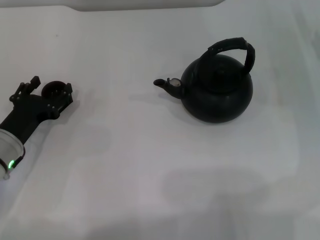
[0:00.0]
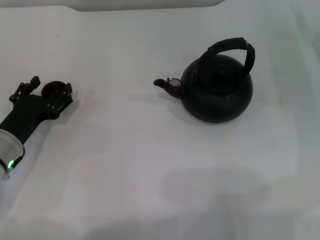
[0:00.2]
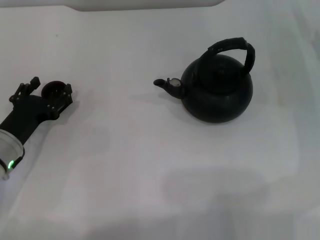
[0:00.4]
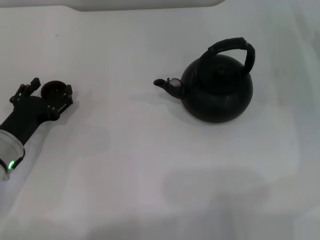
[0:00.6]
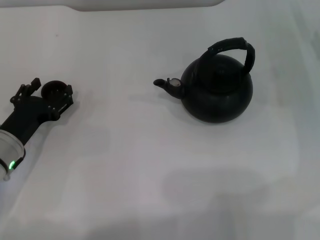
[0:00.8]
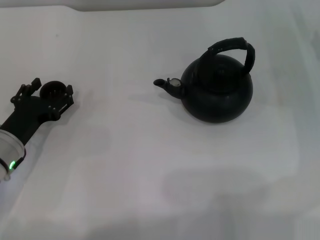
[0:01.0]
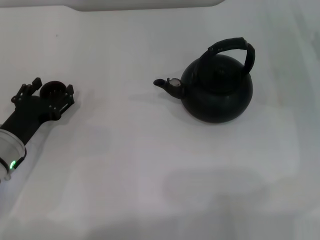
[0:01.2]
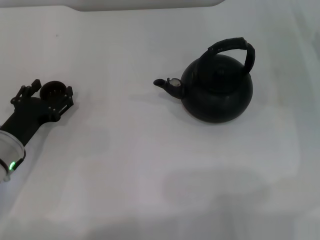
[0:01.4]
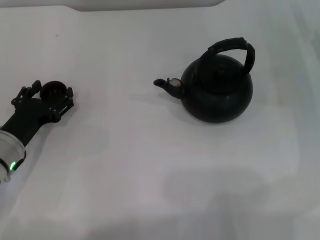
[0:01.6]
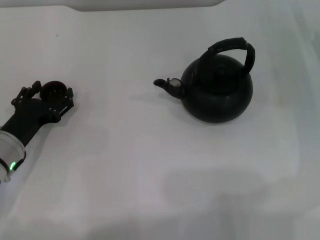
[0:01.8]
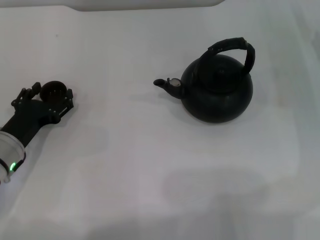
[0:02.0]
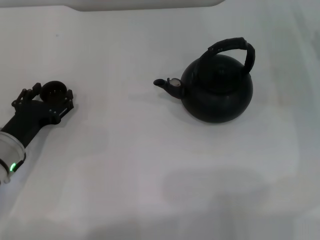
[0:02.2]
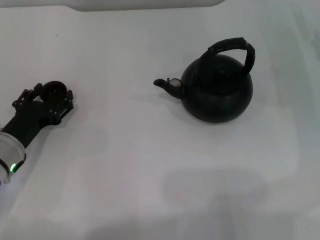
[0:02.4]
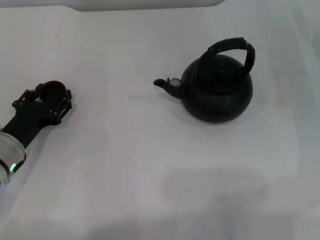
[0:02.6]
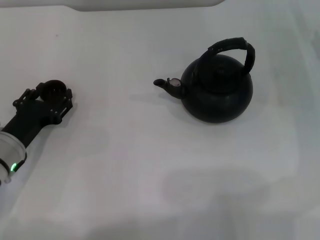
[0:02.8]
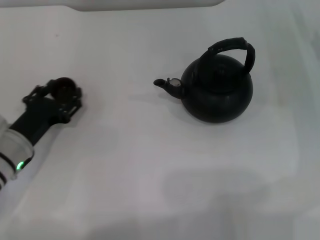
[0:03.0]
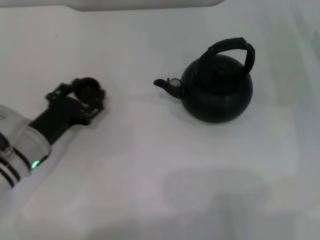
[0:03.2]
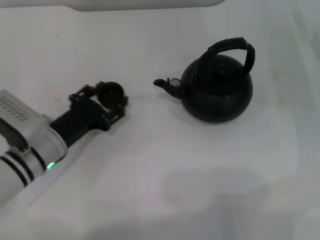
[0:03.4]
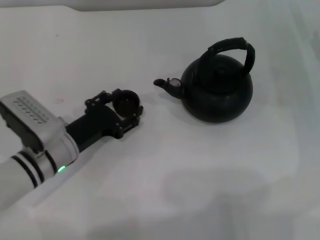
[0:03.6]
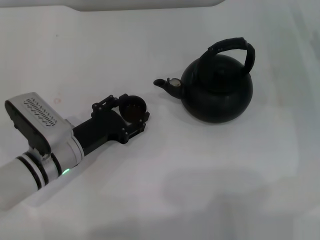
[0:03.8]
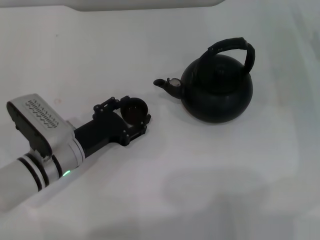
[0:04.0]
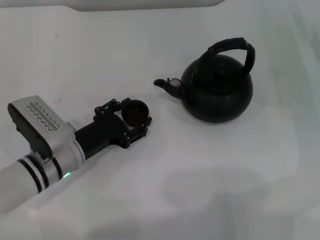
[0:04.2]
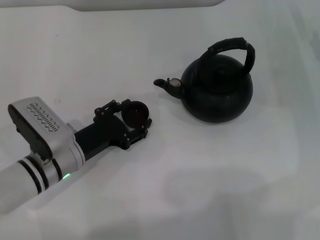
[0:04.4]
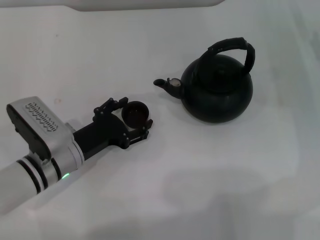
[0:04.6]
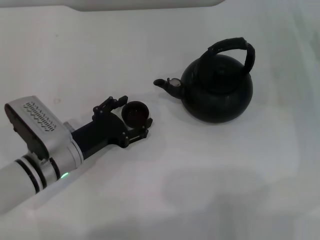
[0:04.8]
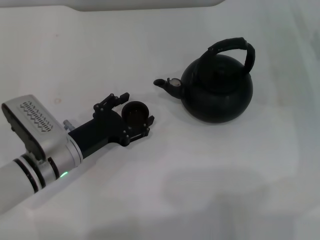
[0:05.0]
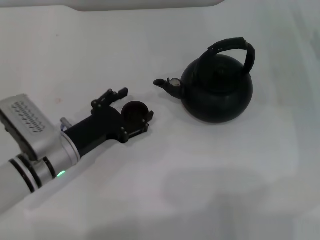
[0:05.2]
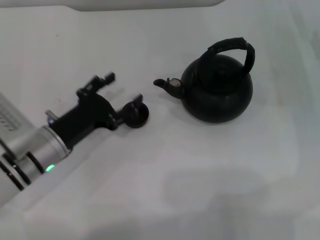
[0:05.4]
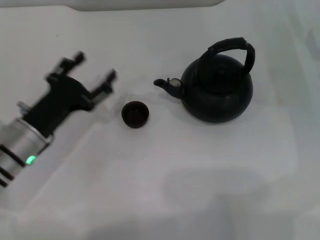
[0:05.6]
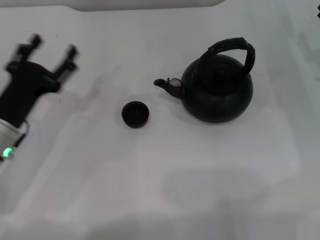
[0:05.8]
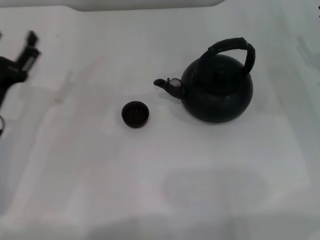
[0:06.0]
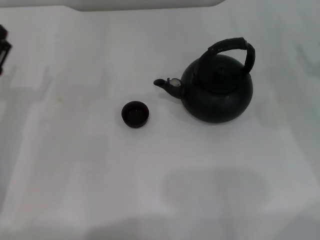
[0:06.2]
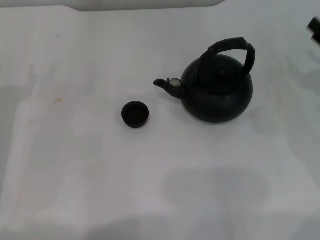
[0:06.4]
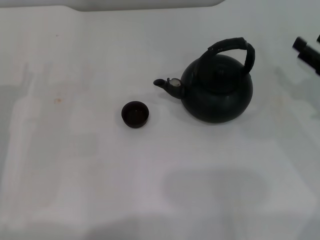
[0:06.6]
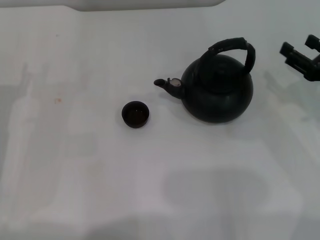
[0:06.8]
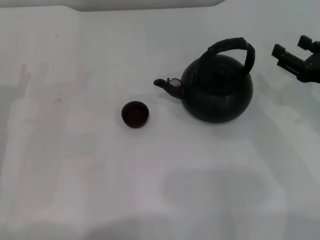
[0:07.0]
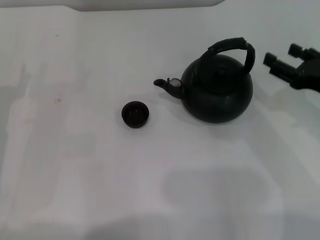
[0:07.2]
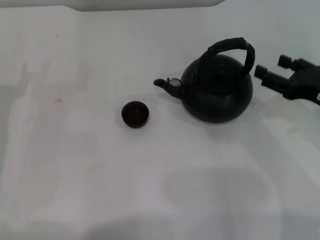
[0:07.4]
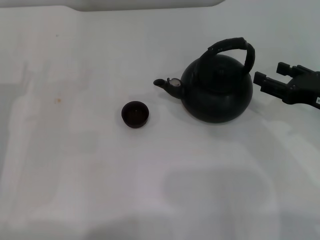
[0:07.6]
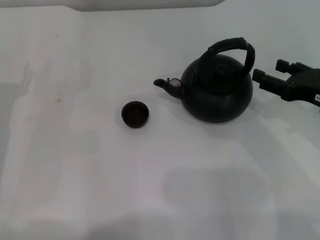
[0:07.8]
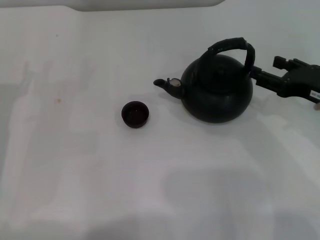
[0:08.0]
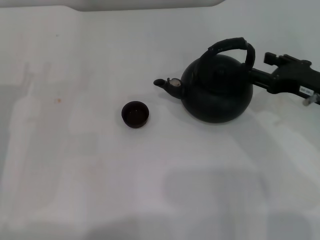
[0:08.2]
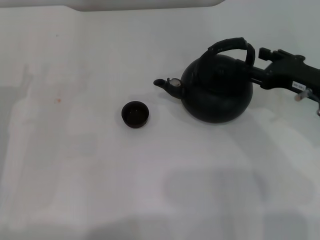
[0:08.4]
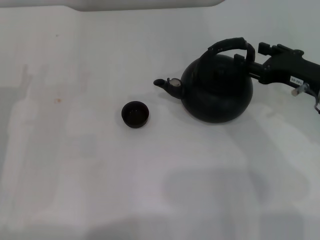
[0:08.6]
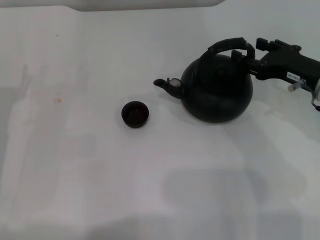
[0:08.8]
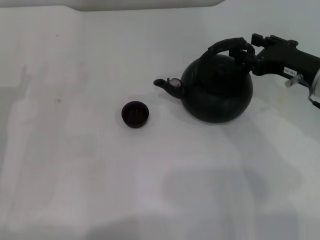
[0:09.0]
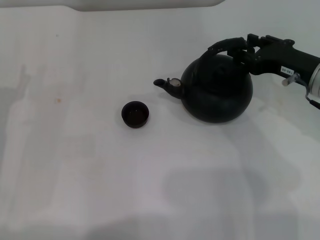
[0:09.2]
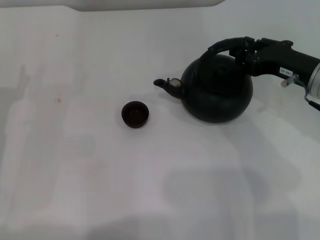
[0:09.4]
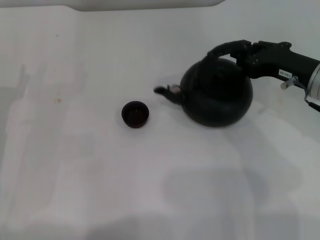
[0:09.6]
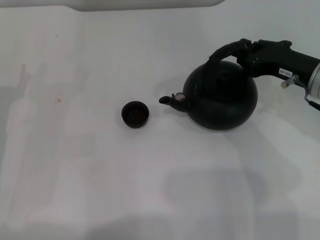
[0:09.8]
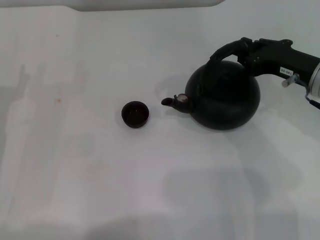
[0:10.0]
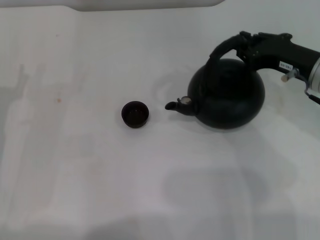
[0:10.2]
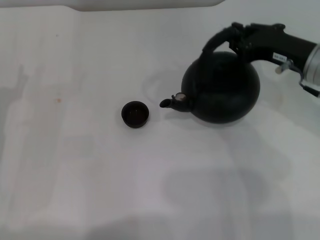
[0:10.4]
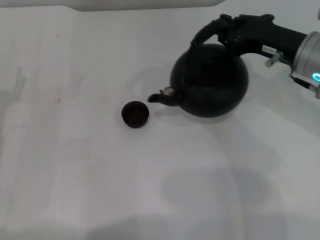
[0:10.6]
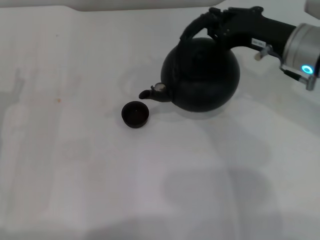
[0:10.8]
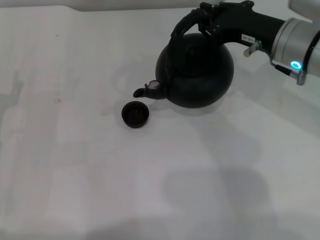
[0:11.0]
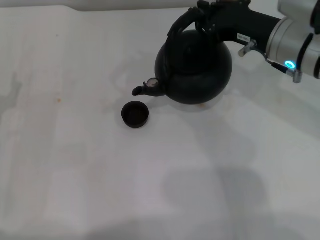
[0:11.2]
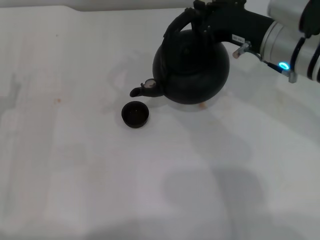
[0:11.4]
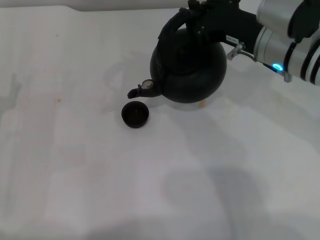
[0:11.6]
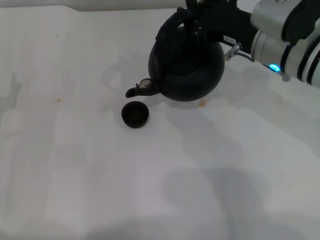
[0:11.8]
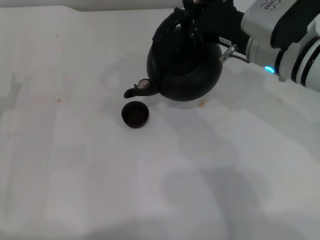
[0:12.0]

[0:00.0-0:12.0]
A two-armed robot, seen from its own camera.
Task of the whole recording: Grasp the handle of the teapot with one hand and pour tea into the teacup.
Step, 0:00.0 to 0:03.2: Pick up the teacup with the left gripper.
Step, 0:03.4 to 0:05.4: Place the teacup in the center of view with the left gripper.
Step, 0:05.6 to 0:10.4: Pick up the teapot with the right gripper.
0:00.0 to 0:01.6: Neither gripper changes place.
0:01.6 to 0:03.0: The left gripper closes.
0:03.0 to 0:04.4: The left gripper goes roughly 5 cm to the right.
0:04.4 to 0:06.0: The left gripper shifts approximately 10 cm to the left, and opens up.
0:06.0 to 0:07.6: The right gripper travels backward and to the left by about 10 cm.
0:07.6 to 0:09.0: The right gripper changes place by roughly 5 cm.
0:09.0 to 0:10.4: The right gripper closes.
0:10.4 to 0:12.0: The right gripper travels to the left by about 10 cm.

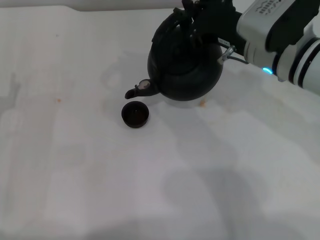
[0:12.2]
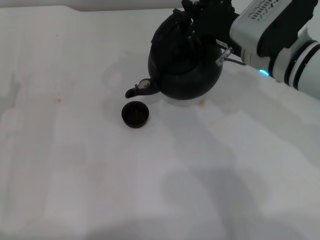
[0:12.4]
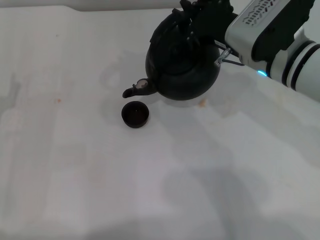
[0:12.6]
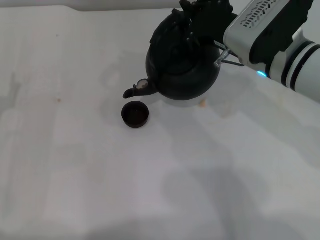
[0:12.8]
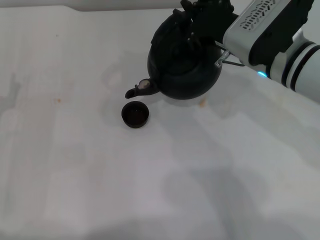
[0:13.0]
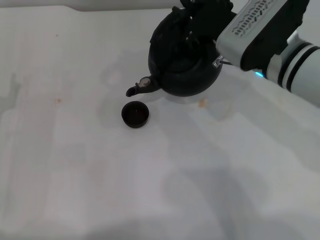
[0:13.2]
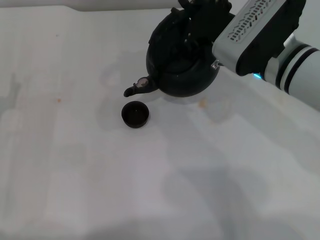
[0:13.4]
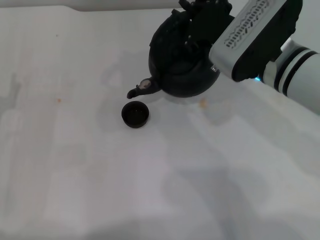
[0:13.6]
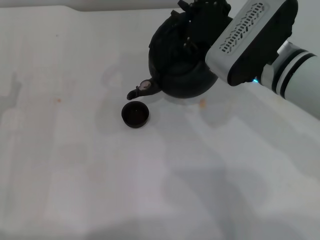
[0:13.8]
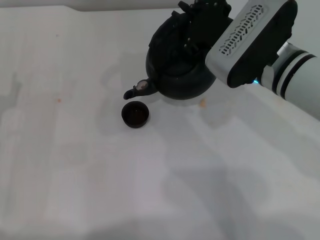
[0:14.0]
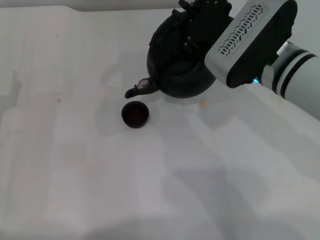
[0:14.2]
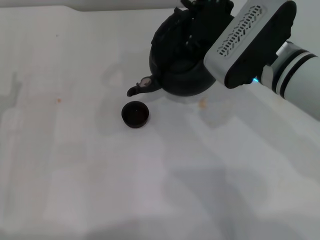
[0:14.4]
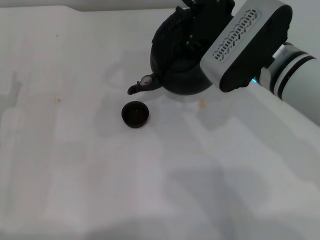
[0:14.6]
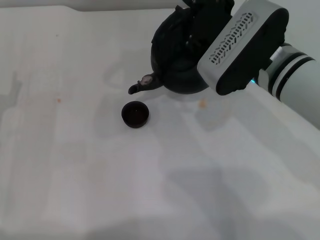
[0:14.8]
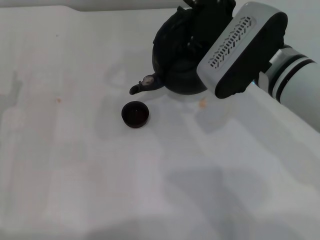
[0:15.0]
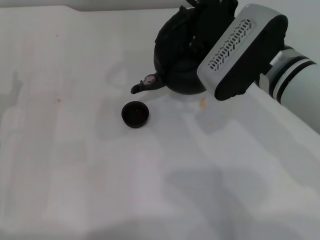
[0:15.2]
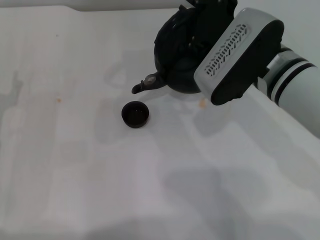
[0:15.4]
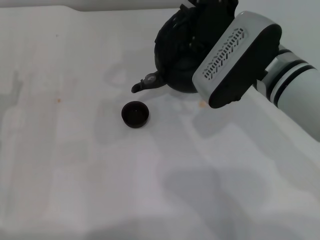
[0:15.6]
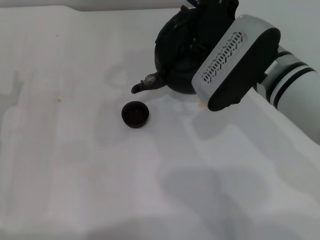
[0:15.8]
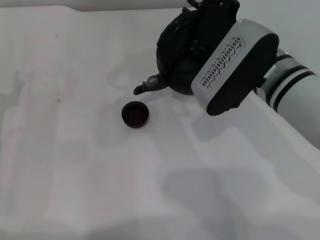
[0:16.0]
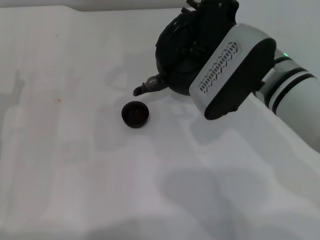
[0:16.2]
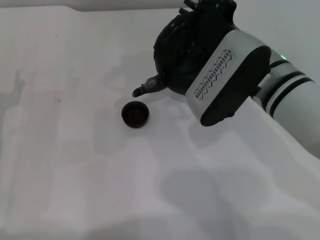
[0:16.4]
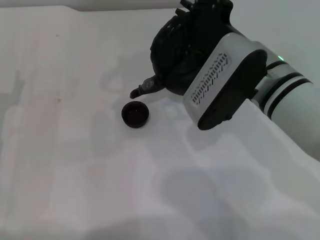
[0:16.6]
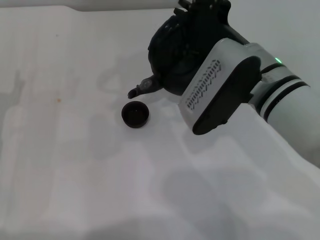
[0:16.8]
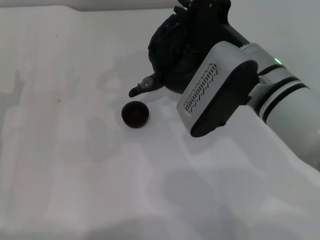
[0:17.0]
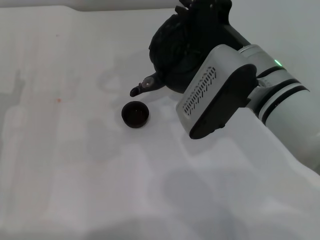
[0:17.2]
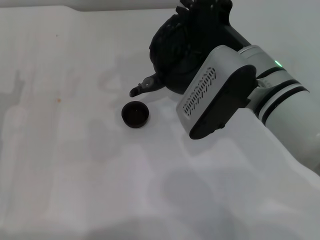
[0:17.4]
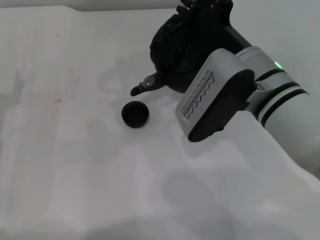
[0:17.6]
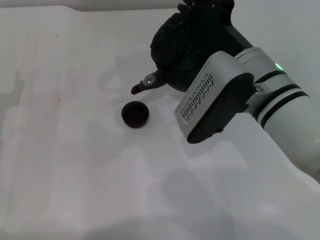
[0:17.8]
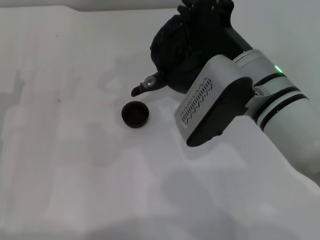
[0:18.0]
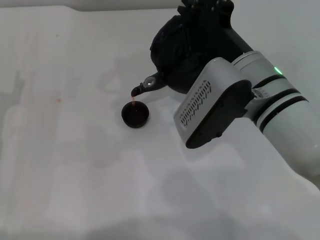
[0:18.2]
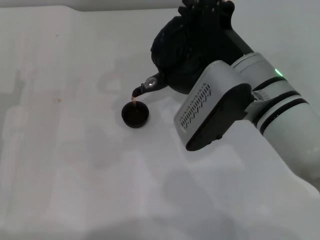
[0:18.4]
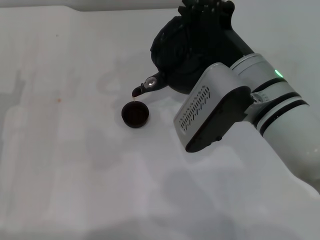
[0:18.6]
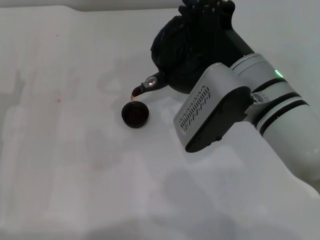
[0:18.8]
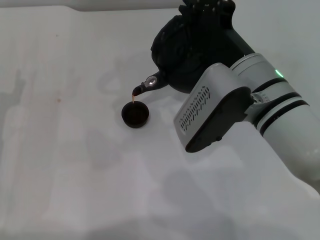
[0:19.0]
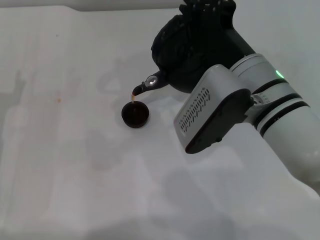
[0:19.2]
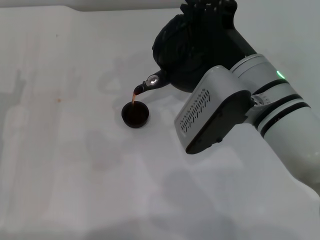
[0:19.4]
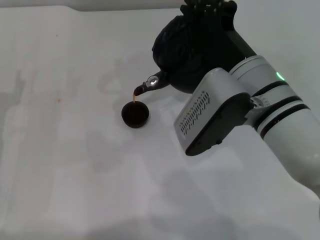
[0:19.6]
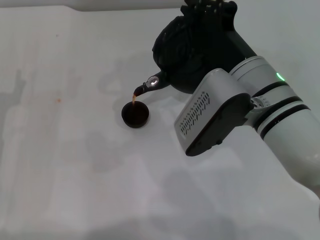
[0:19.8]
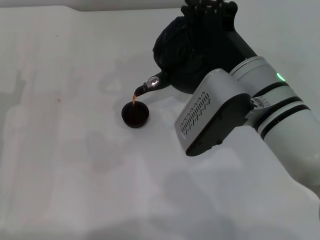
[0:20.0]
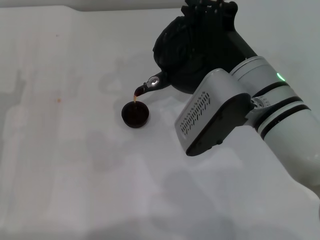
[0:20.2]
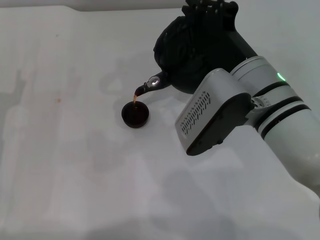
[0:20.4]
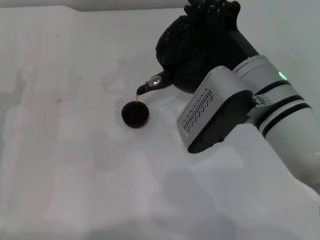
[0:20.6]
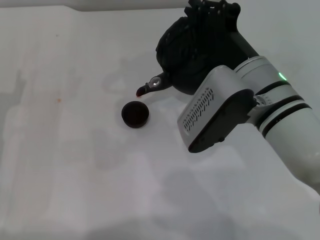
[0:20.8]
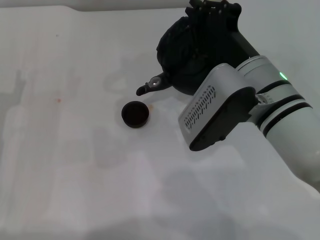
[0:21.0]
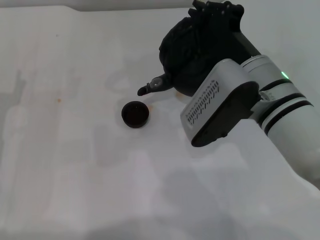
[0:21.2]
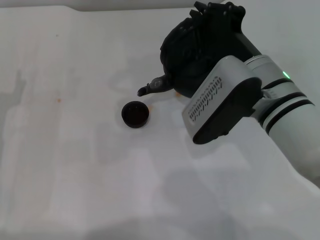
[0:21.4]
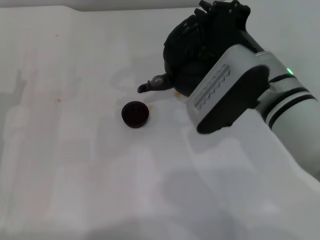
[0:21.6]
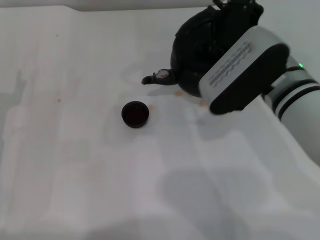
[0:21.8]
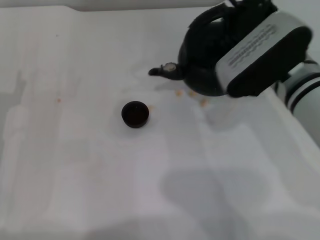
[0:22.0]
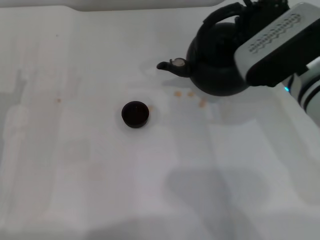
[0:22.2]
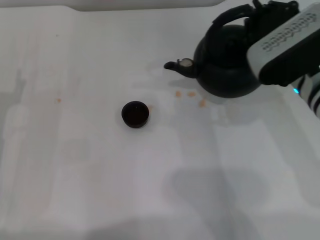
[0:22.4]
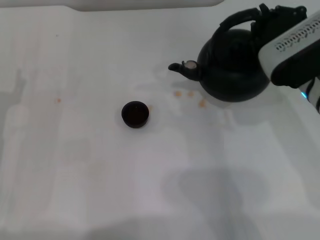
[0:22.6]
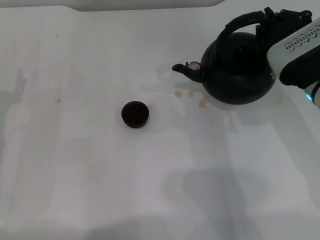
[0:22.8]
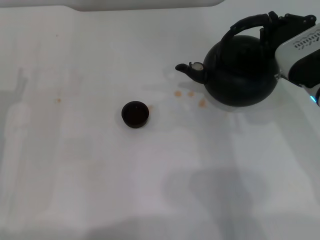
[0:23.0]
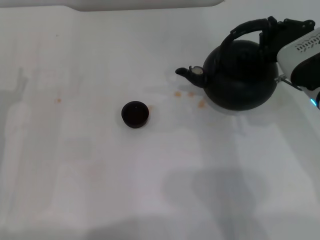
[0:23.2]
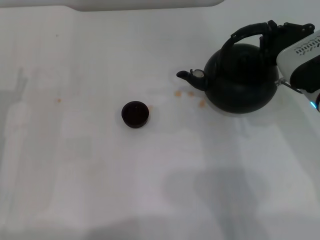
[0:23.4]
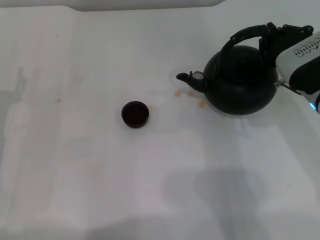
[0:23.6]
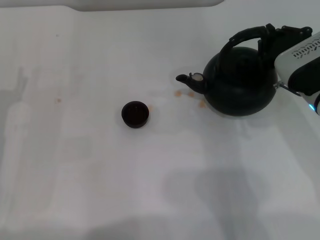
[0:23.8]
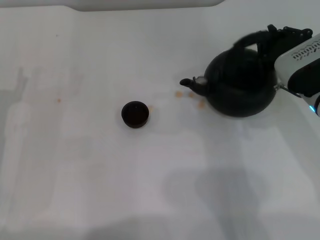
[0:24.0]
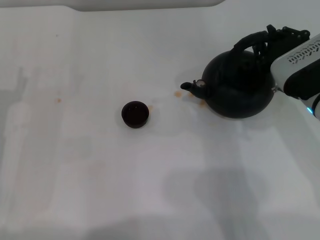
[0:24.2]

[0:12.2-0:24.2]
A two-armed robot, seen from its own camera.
Task of the whole recording: Grasp the handle of the teapot with one hand and pour tea into the teacup.
Step, 0:12.2 to 0:21.4: Pour tea into the teacup with the right gripper.
0:12.2 to 0:13.8: The grippers stay close to where they were, moving slightly.
0:13.8 to 0:15.2: The grippers stay close to where they were, moving slightly.
0:15.2 to 0:16.6: There are only small adjustments of the grippers.
0:16.6 to 0:18.2: The grippers stay close to where they were, moving slightly.
0:18.2 to 0:21.2: Both grippers stay put.
0:21.2 to 0:22.6: The right gripper travels to the right by about 5 cm.
0:22.6 to 0:24.2: The grippers make only small movements.
